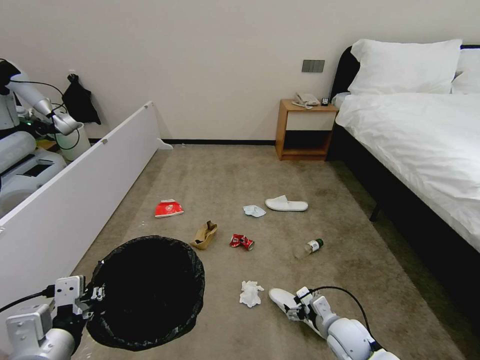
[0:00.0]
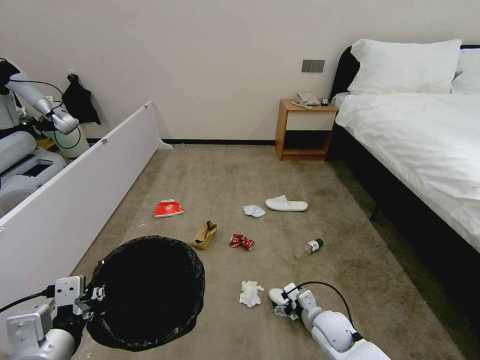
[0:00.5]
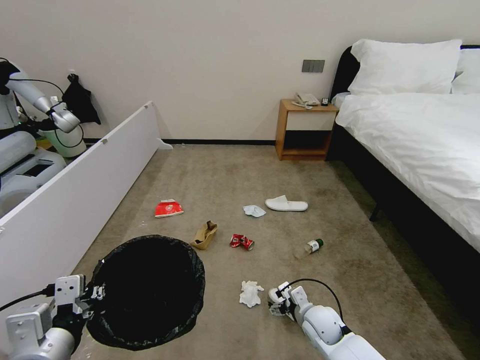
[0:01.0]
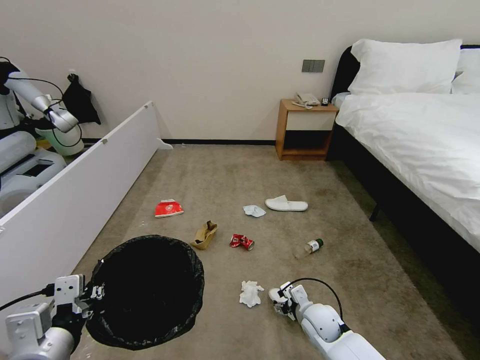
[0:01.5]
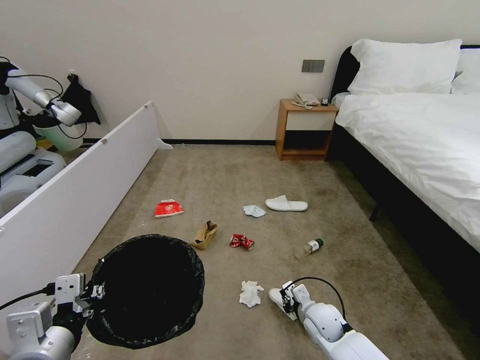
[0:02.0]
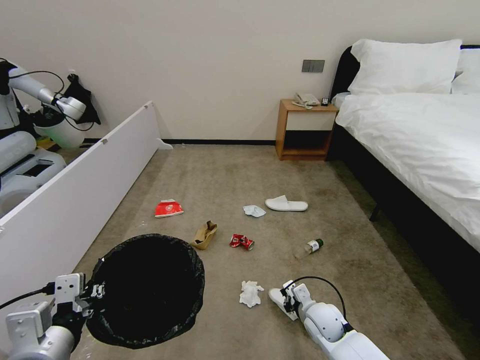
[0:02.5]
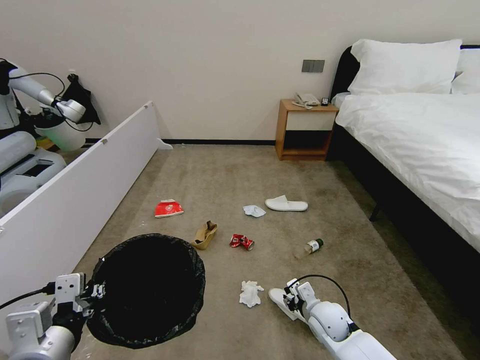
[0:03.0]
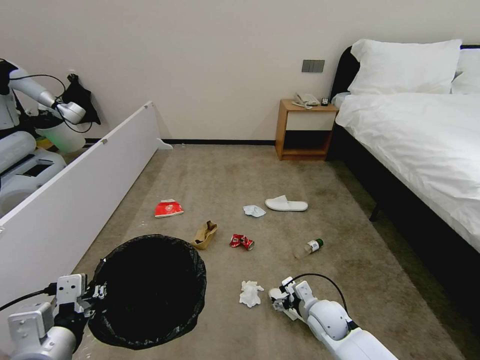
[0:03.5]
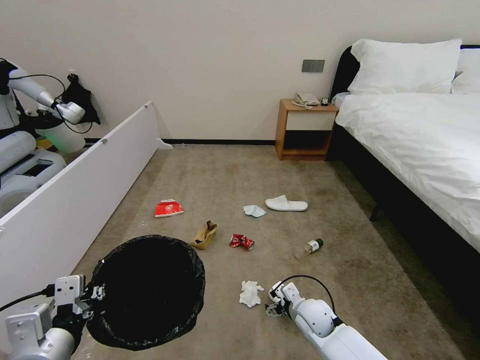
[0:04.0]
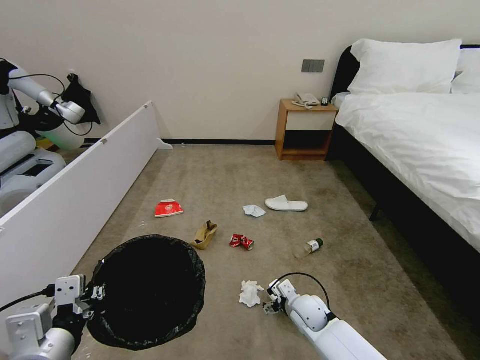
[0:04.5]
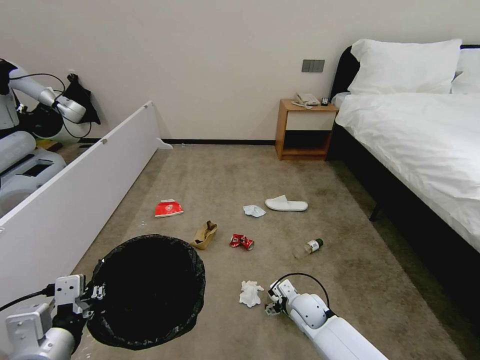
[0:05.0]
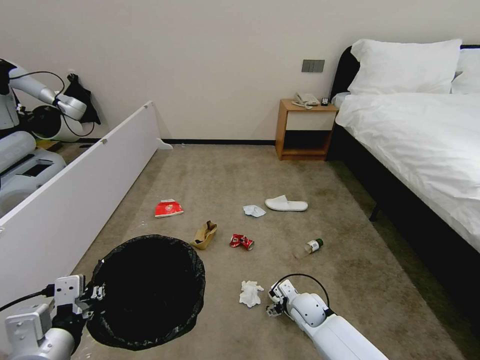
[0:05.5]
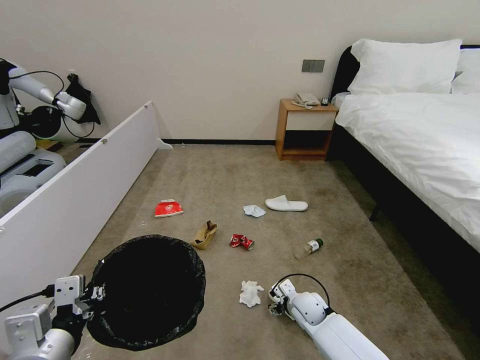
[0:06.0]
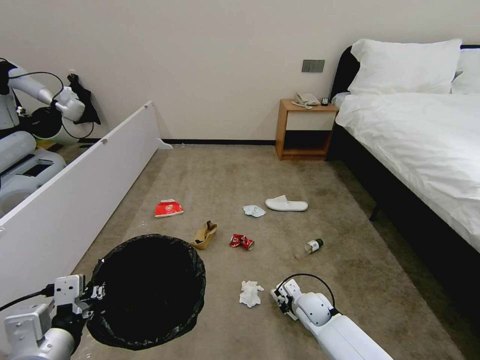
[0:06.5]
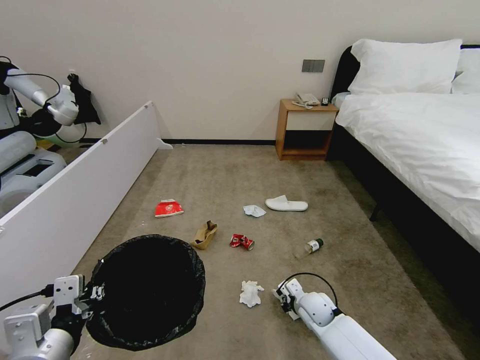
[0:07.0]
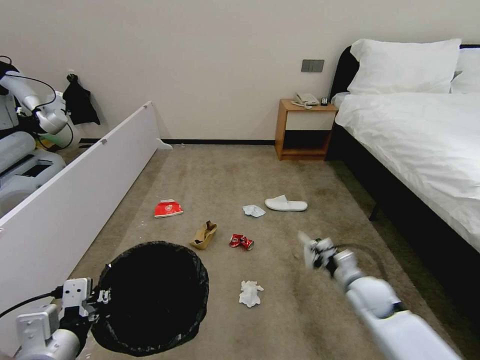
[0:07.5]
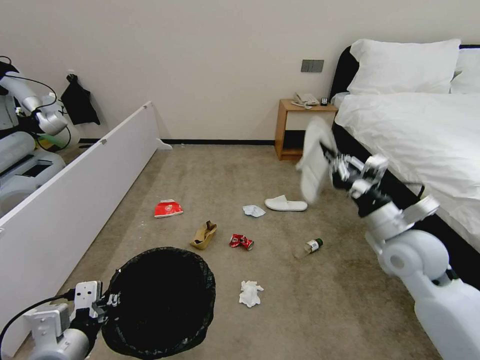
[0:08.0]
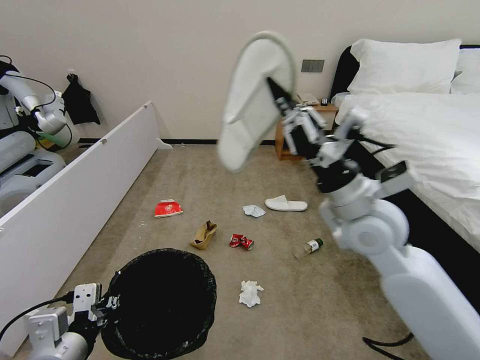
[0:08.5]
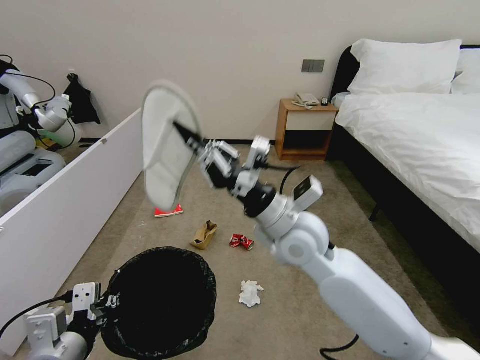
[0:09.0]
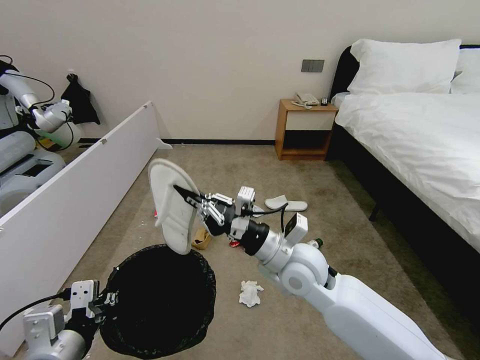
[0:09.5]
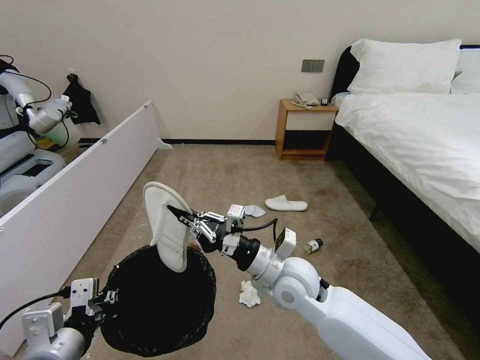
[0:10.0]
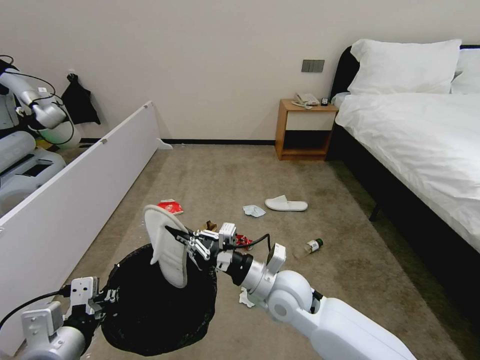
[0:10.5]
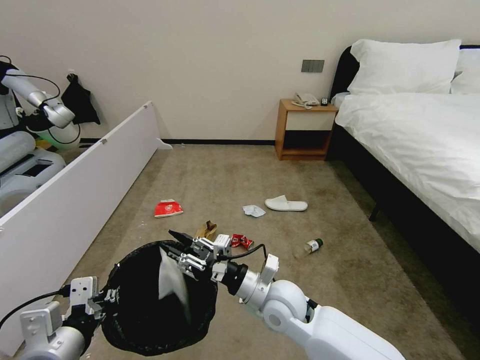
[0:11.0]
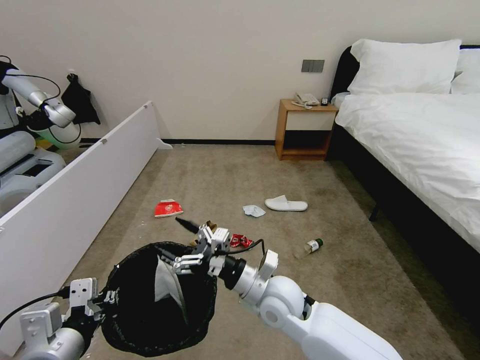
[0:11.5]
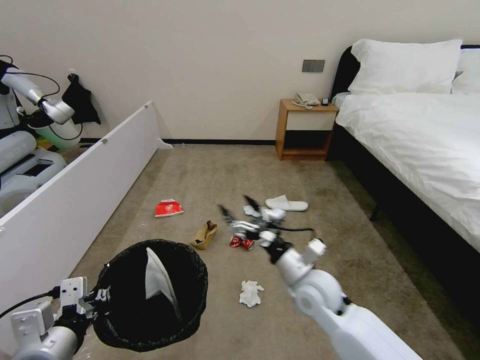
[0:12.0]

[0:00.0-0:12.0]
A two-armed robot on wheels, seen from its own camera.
Task of the whole recording: Pick up the trash bin, then pick up the garbage from the floor and place it into the trash bin.
0:00.0 to 0:02.0: The right gripper travels to the left by approximately 5 cm, and closes its fingers.
0:02.0 to 0:04.0: The right gripper opens its fingers.
0:04.0 to 0:06.0: There are only small adjustments of the grippers.
0:06.0 to 0:08.0: The right gripper goes some 30 cm upward, and closes.
0:08.0 to 0:10.0: The right gripper travels to the left by about 20 cm.
0:10.0 to 0:12.0: The right gripper is displaced to the right and downward by roughly 10 cm, and opens its fingers.

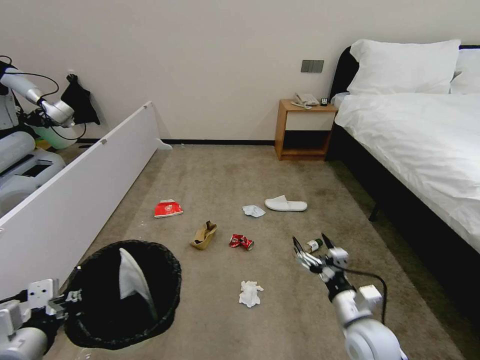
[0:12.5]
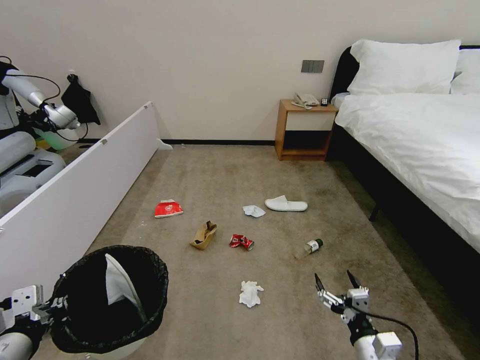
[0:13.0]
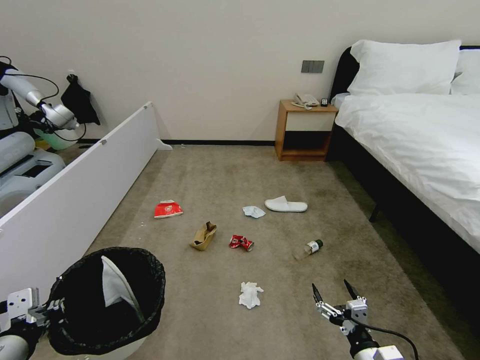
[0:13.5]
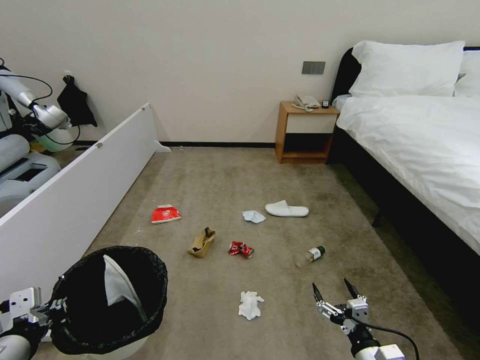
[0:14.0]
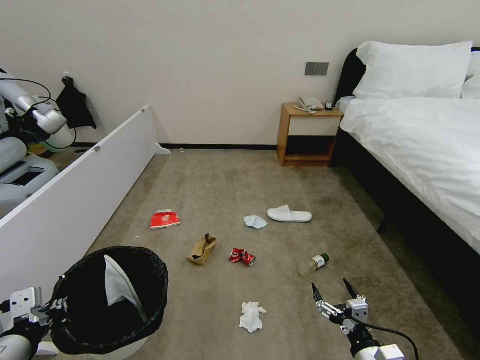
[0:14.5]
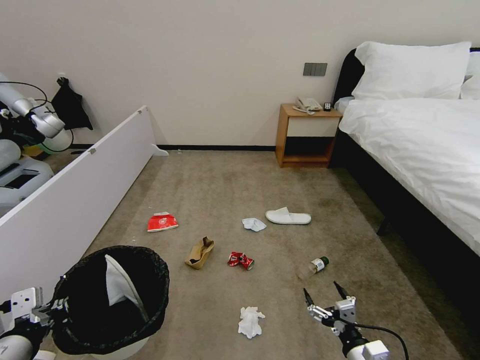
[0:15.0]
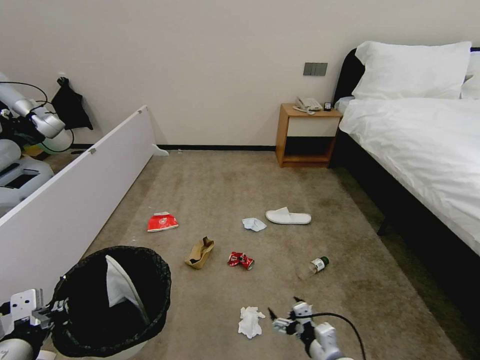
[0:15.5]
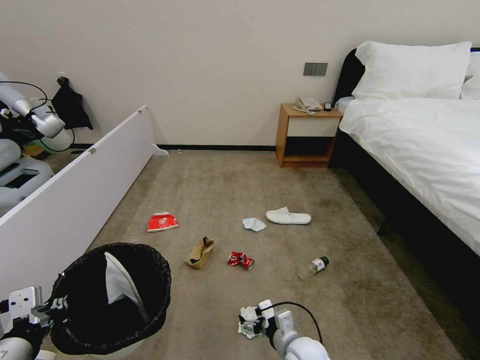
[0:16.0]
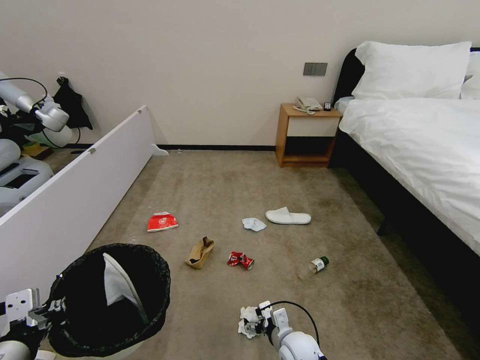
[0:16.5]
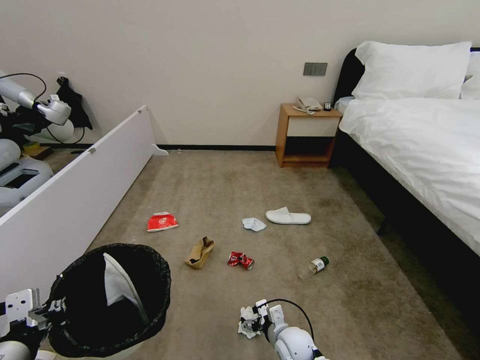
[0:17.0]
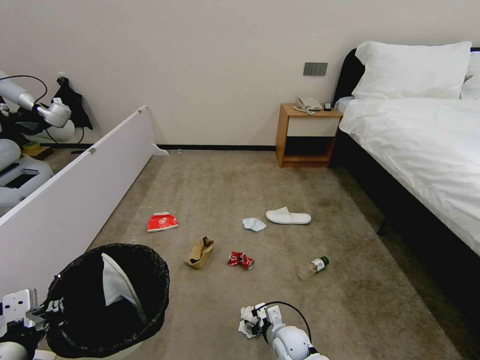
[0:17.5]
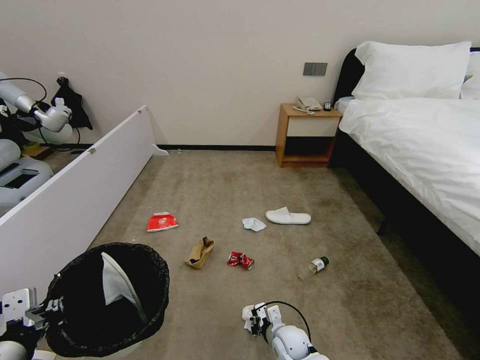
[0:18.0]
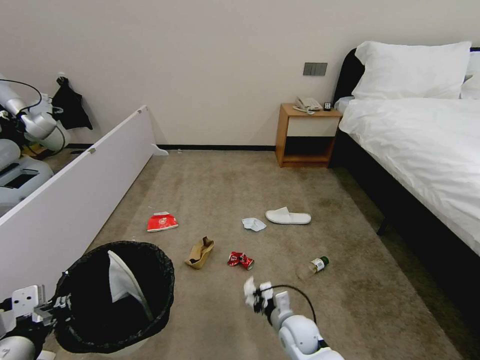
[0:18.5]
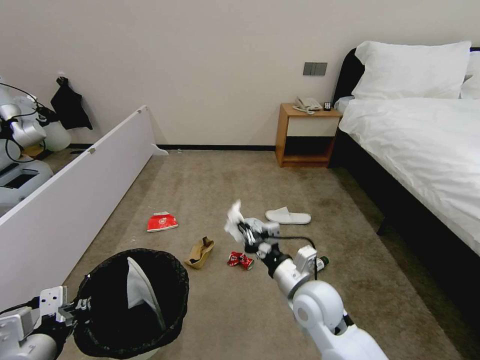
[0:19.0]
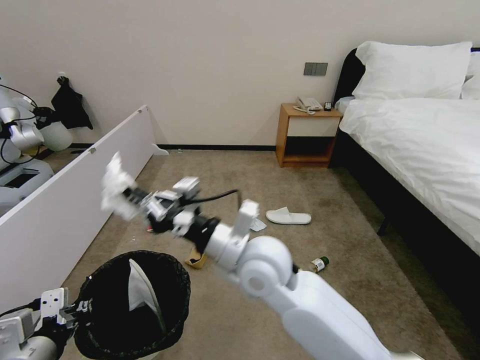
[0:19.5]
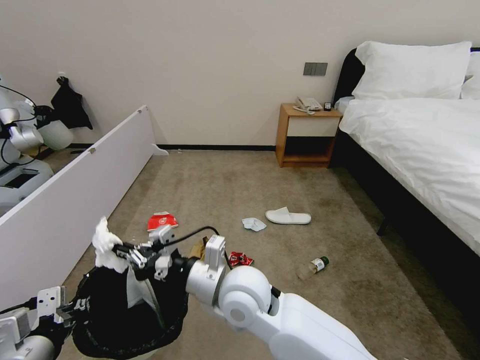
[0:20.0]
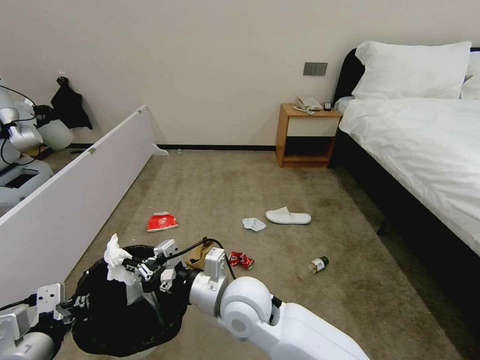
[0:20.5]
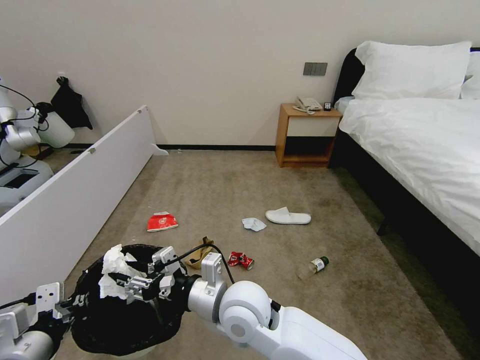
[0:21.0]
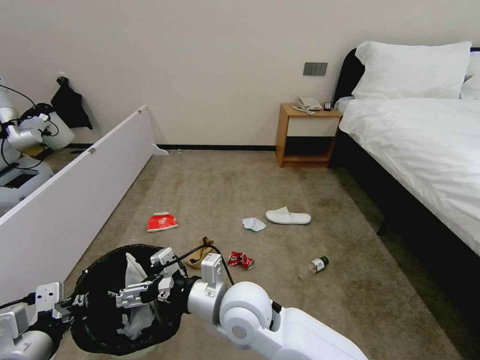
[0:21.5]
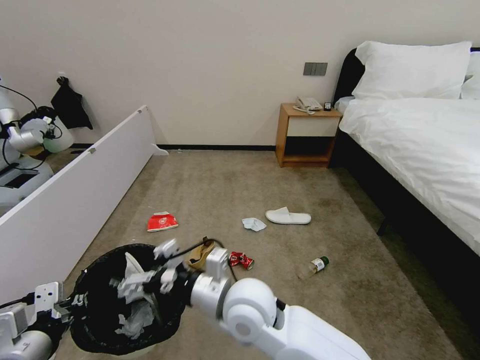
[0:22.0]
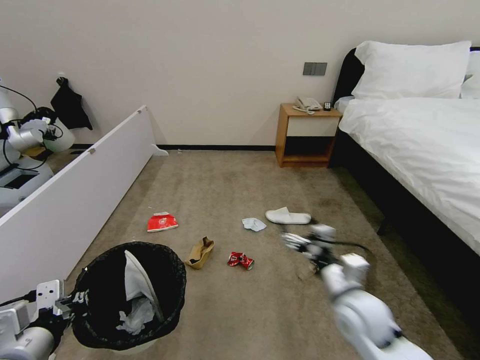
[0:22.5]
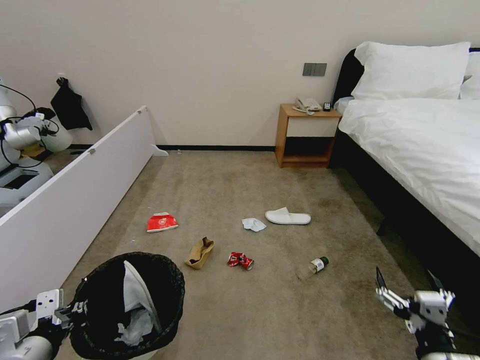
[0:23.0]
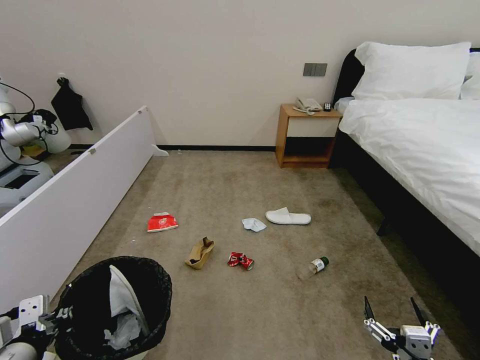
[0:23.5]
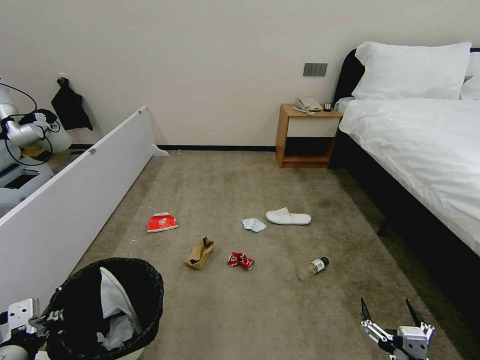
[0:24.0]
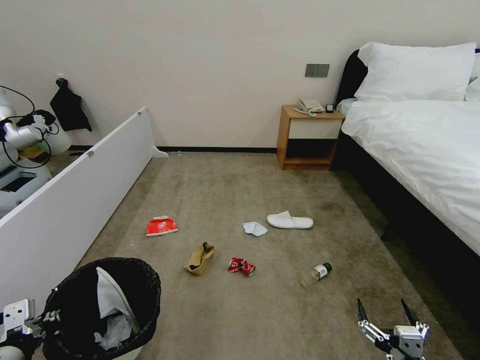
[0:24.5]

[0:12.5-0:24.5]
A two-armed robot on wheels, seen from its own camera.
Task of the whole recording: Pick up the trash bin, then pick up the garbage from the floor and place it into the trash bin.
0:12.5 to 0:14.5: The right gripper shifts some 10 cm backward and downward.
0:14.5 to 0:16.5: The right gripper moves to the left, forward and downward, approximately 20 cm.
0:16.5 to 0:18.5: The right gripper closes.
0:18.5 to 0:20.5: The right gripper is displaced upward and to the left by about 30 cm.
0:20.5 to 0:22.5: The right gripper goes some 25 cm to the right, and opens its fingers.
0:22.5 to 0:24.5: The right gripper heads backward, covering some 20 cm.

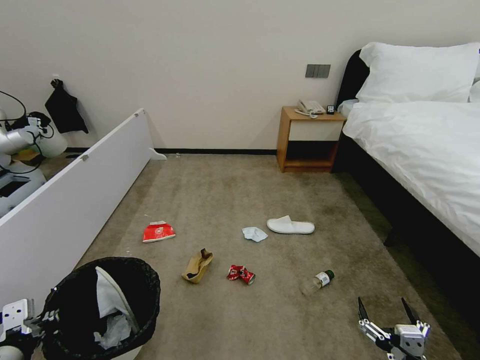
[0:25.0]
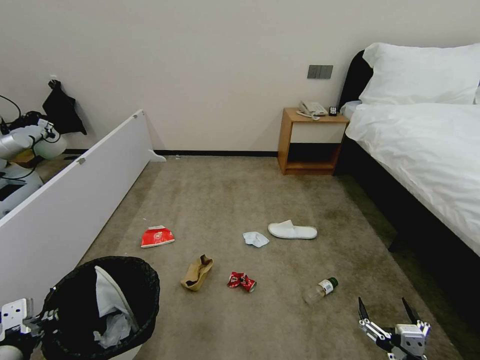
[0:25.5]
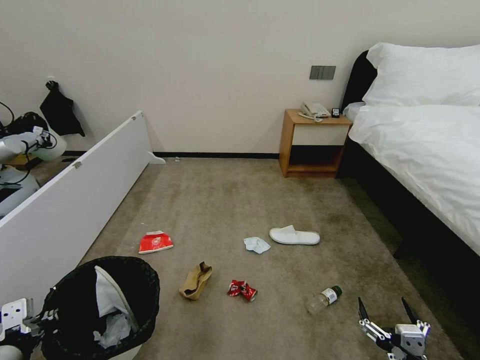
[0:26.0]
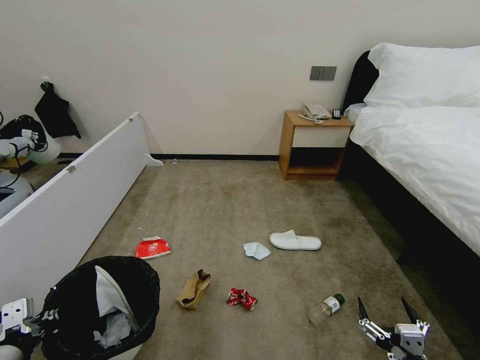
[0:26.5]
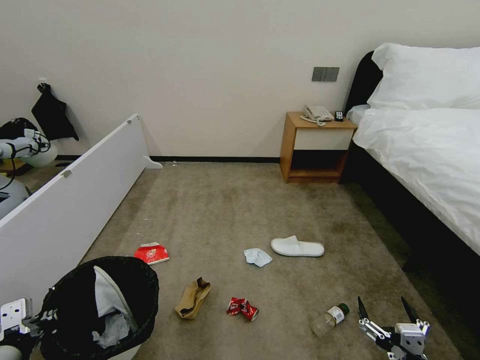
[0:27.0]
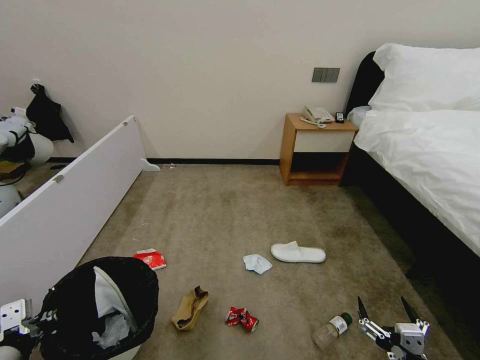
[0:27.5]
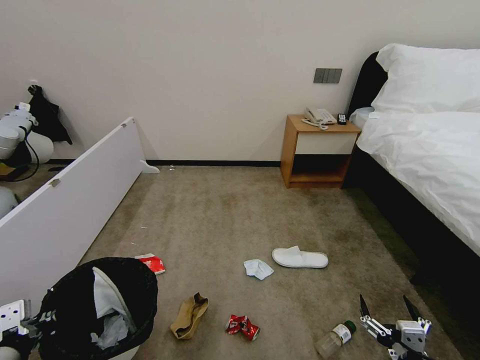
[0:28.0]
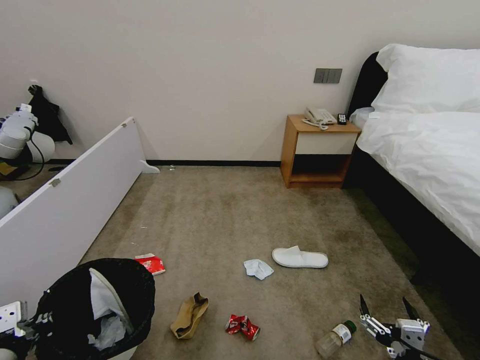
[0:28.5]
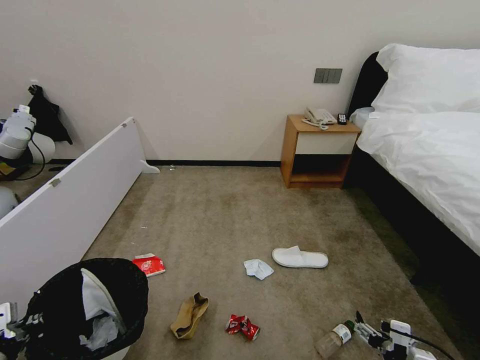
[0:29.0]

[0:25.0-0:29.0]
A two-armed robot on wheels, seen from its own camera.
Task of the whole recording: Pick up the trash bin, then pick up the garbage from the floor and place it into the trash bin.
0:25.0 to 0:27.0: The two grippers keep their place.
